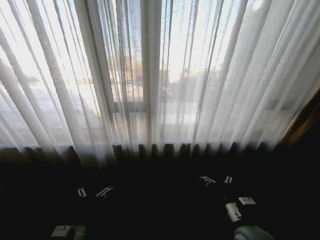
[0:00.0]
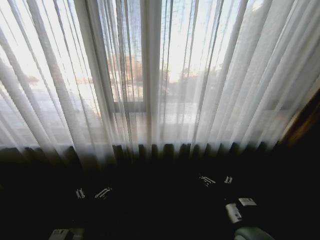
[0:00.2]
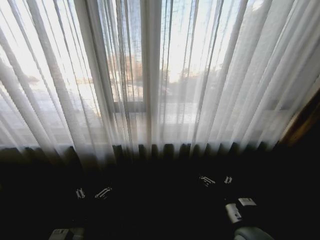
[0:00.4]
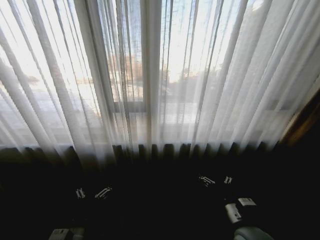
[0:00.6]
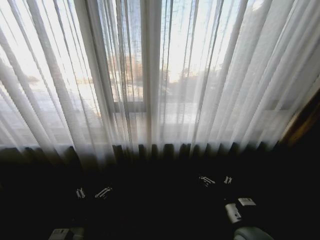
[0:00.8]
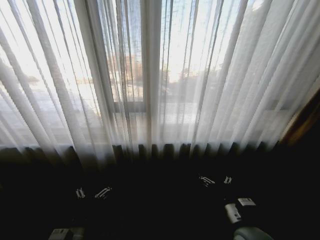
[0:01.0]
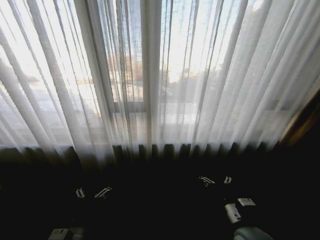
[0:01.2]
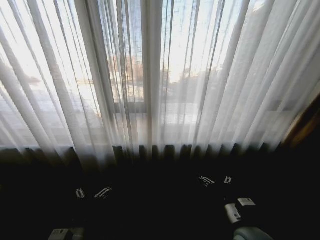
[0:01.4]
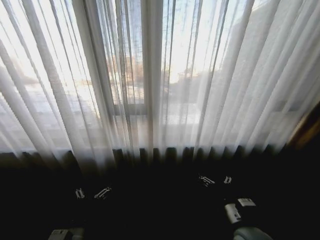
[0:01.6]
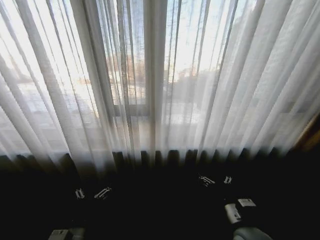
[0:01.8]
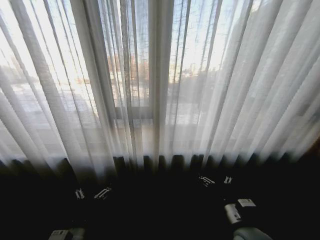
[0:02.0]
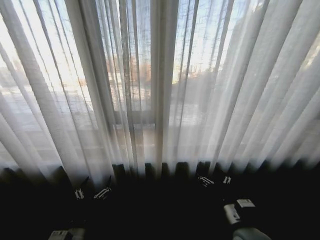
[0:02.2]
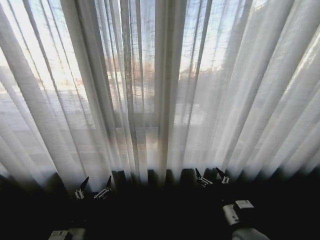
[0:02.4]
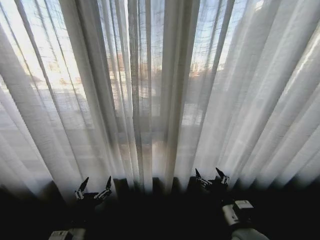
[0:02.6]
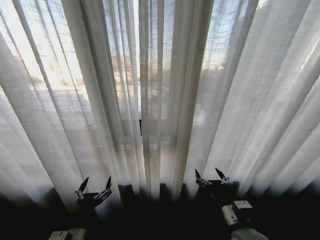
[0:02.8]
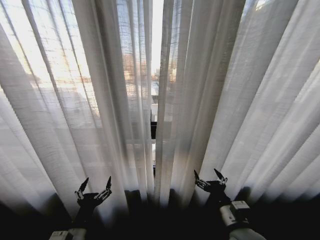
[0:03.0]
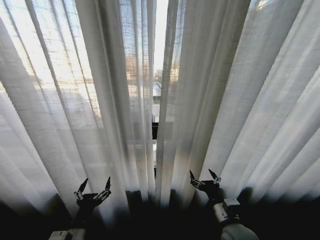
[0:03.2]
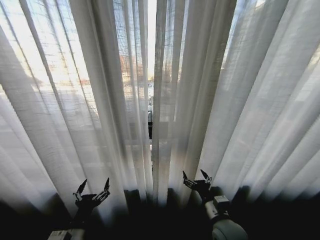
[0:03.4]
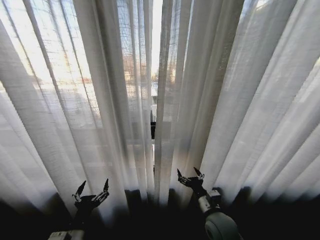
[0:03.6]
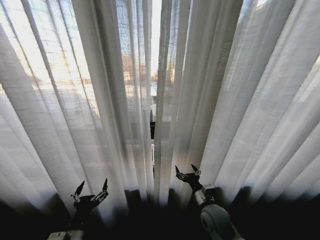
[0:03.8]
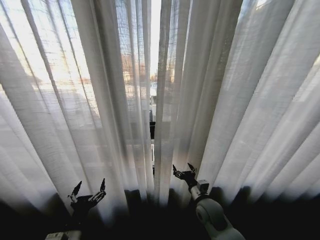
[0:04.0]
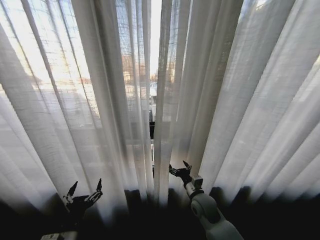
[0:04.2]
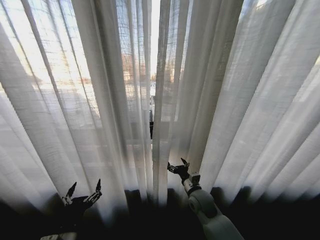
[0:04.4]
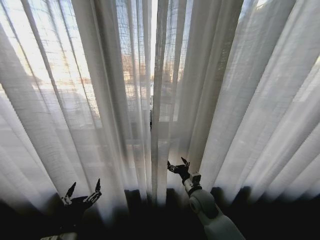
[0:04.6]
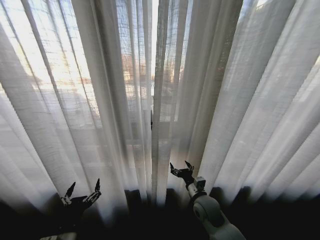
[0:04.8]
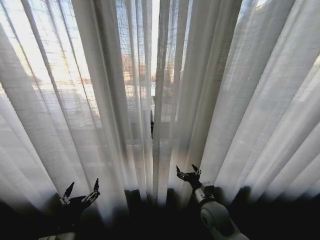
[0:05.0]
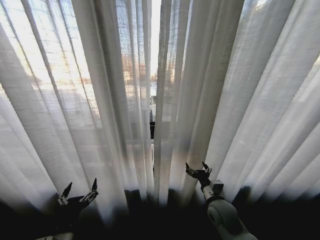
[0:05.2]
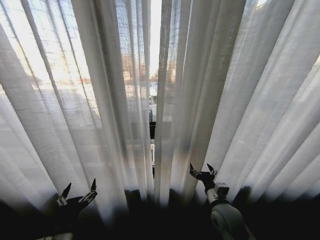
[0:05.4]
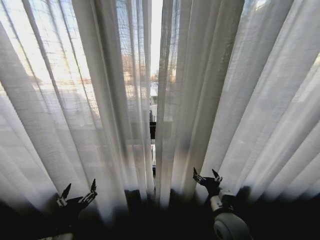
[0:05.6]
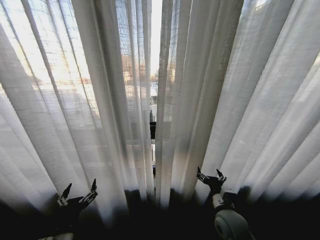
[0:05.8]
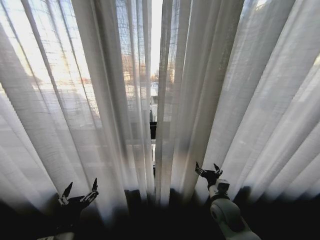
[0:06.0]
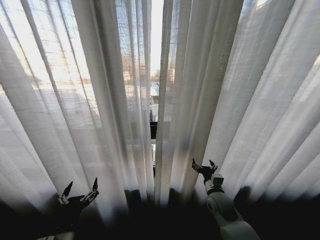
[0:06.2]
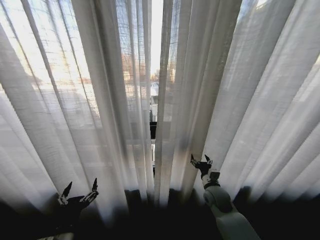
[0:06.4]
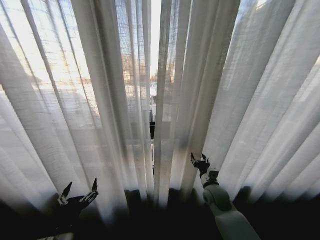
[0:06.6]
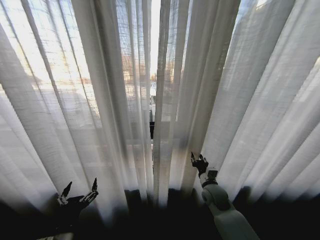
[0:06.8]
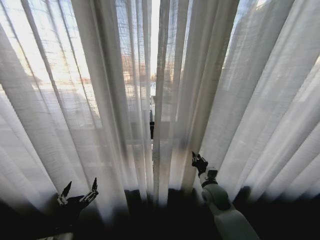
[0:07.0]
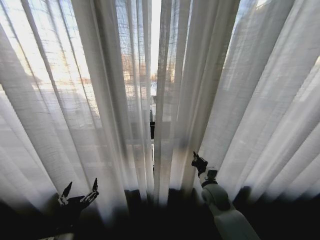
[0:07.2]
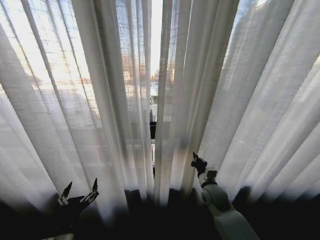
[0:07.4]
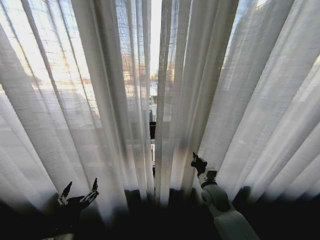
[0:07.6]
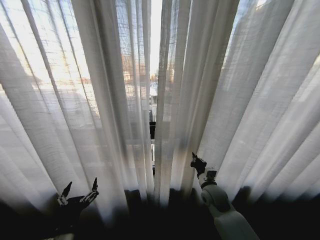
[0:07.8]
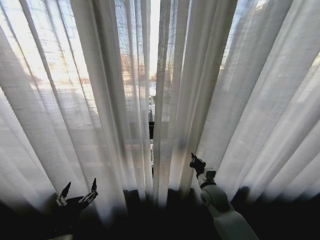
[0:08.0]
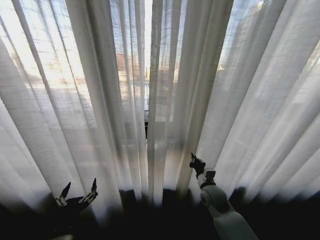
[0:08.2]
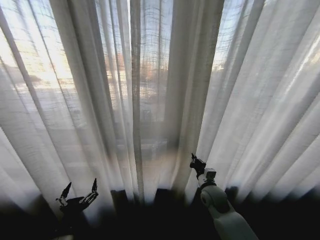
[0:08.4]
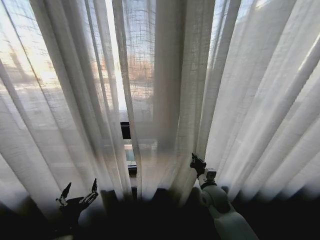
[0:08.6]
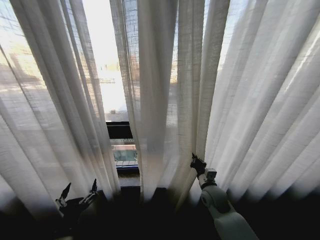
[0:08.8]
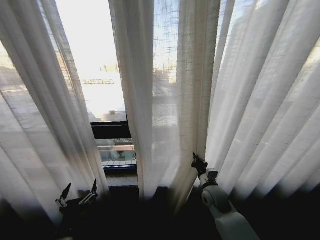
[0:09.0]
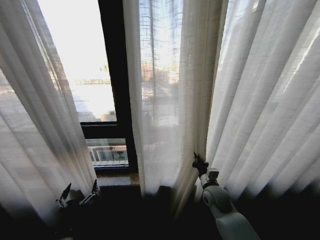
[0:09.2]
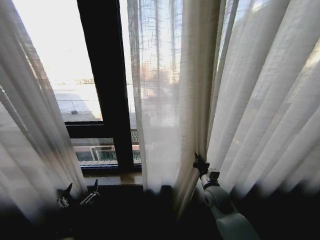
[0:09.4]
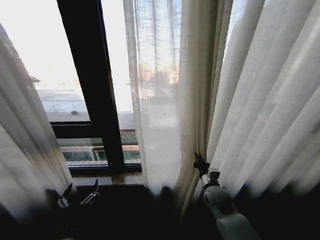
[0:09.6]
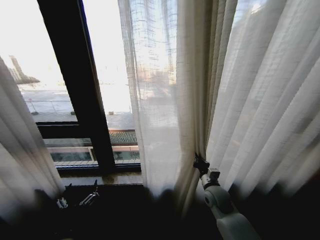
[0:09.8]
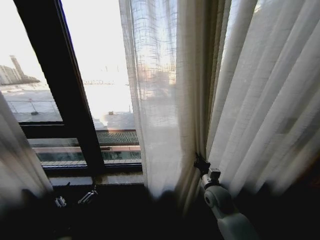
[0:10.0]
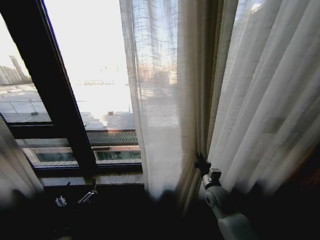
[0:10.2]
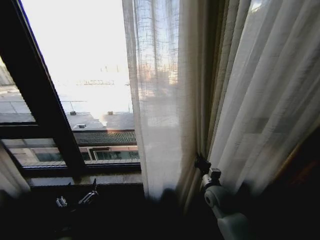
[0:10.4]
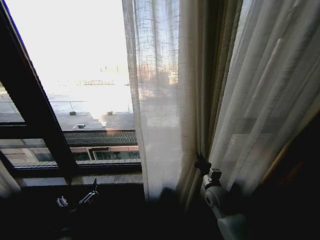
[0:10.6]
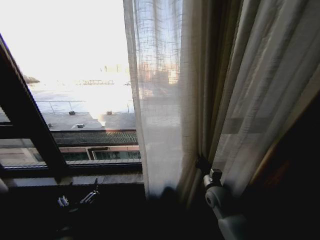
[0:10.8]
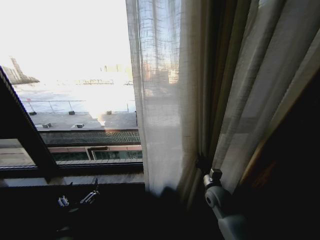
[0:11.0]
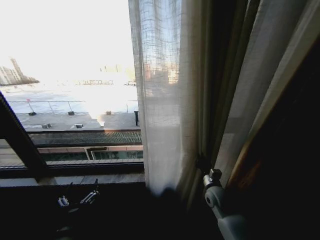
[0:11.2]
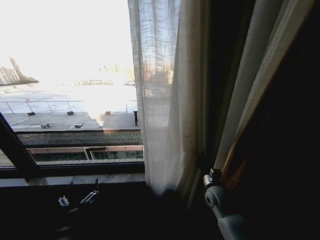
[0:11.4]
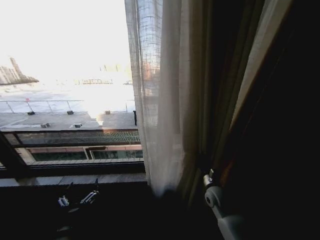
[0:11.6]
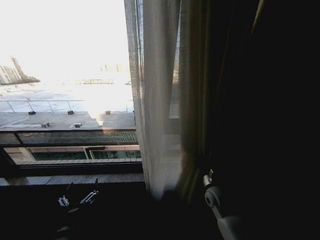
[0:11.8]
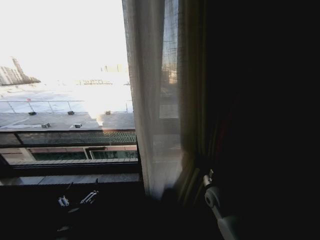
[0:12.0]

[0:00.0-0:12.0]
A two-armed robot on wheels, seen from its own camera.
Task of the whole recording: Open the curtains by pulling them apart, changing their state from closed to fully open.
0:03.0 to 0:04.4: The right gripper is displaced forward, to the left and downward by roughly 20 cm.
0:04.4 to 0:06.0: The right gripper travels to the right by roughly 10 cm.
0:06.0 to 0:07.6: The right gripper moves forward, roughly 5 cm, and closes its fingers.

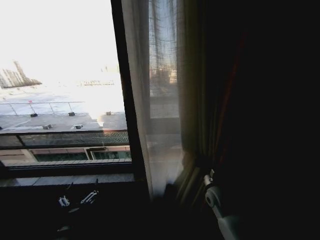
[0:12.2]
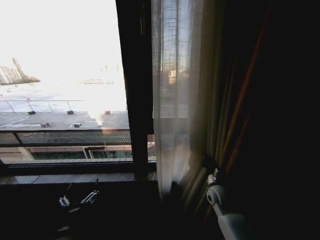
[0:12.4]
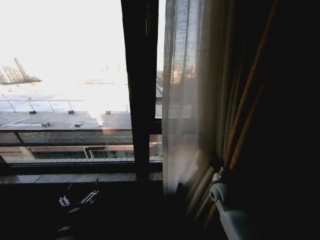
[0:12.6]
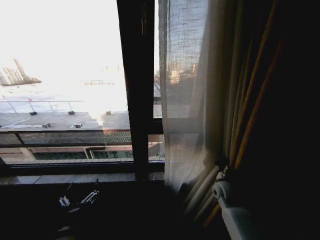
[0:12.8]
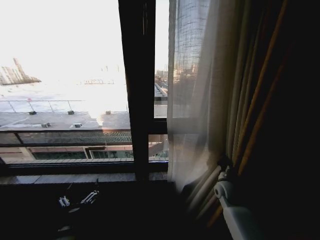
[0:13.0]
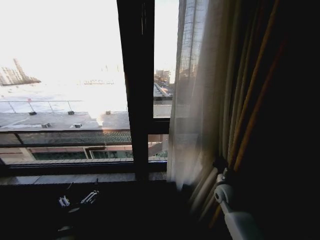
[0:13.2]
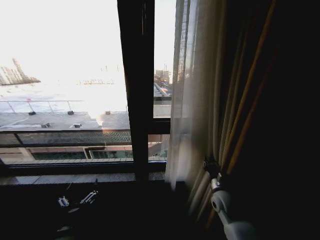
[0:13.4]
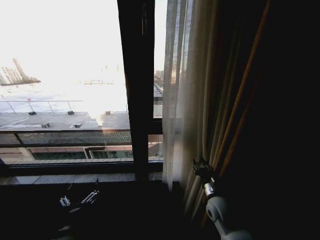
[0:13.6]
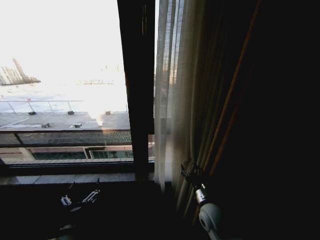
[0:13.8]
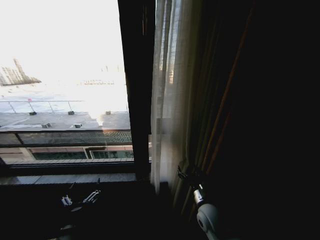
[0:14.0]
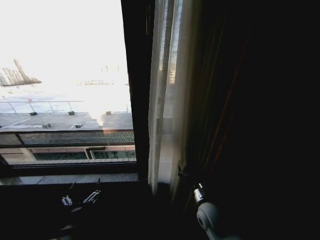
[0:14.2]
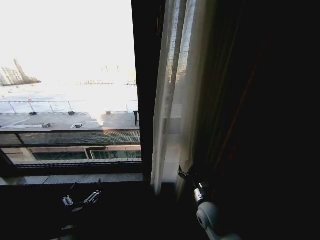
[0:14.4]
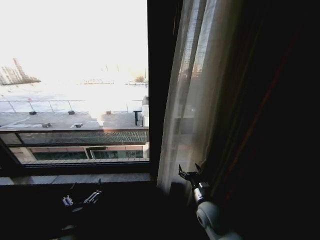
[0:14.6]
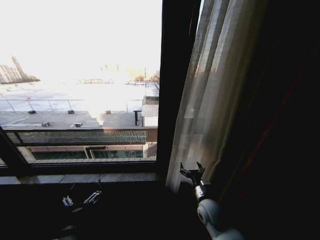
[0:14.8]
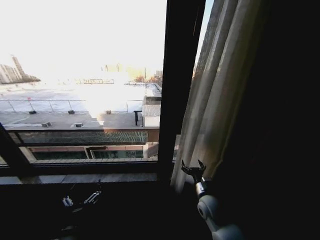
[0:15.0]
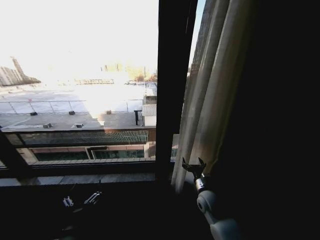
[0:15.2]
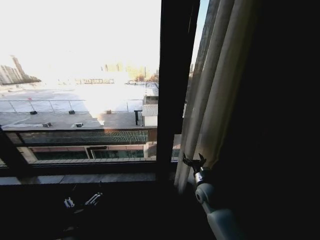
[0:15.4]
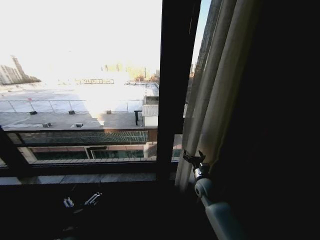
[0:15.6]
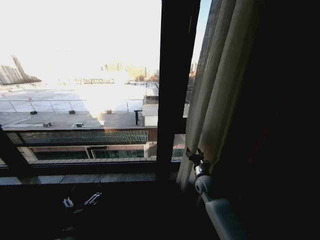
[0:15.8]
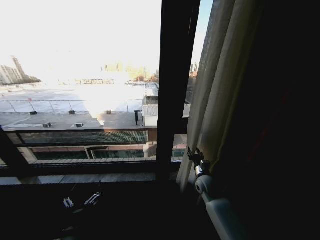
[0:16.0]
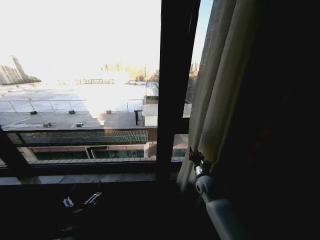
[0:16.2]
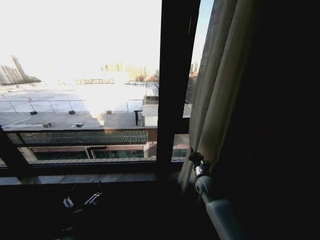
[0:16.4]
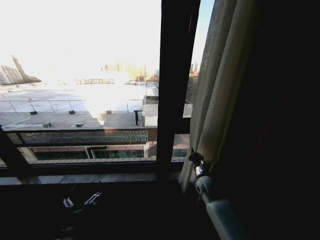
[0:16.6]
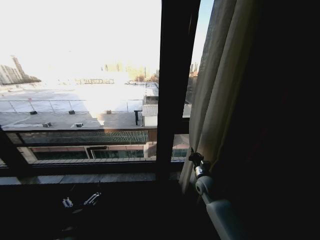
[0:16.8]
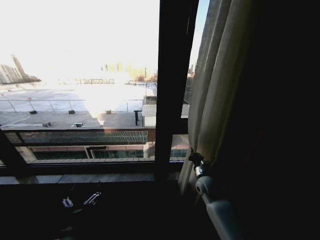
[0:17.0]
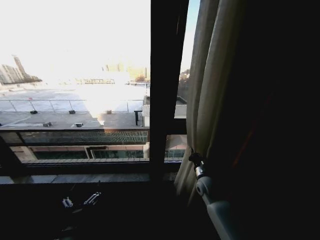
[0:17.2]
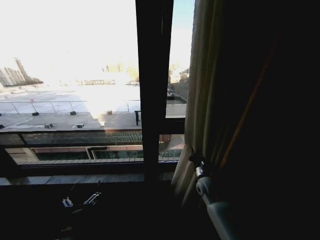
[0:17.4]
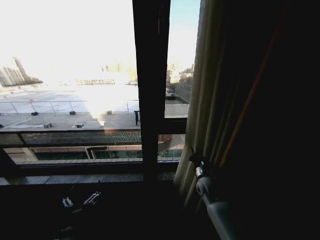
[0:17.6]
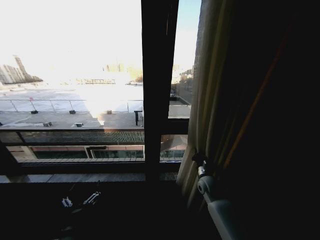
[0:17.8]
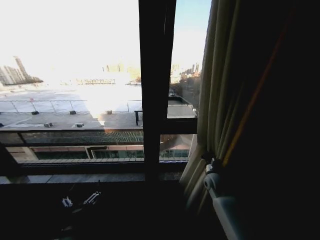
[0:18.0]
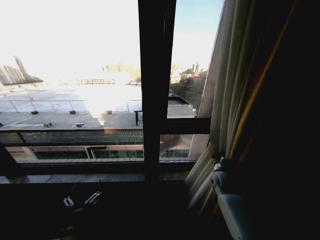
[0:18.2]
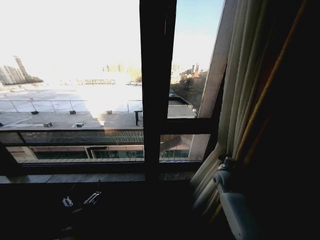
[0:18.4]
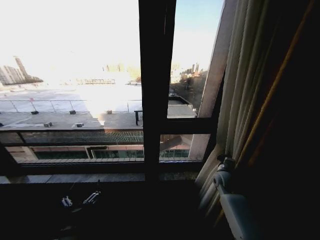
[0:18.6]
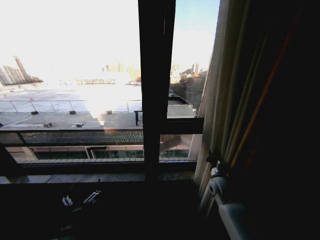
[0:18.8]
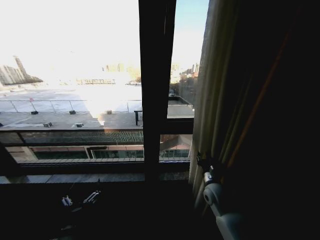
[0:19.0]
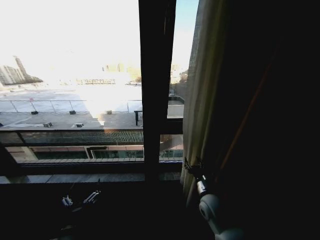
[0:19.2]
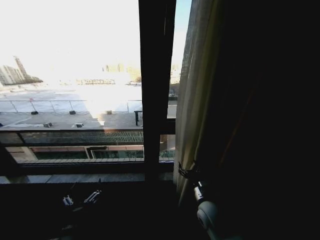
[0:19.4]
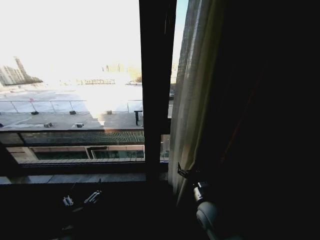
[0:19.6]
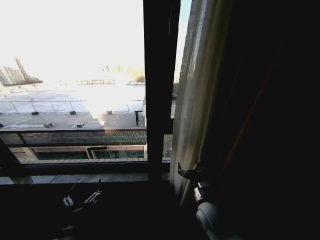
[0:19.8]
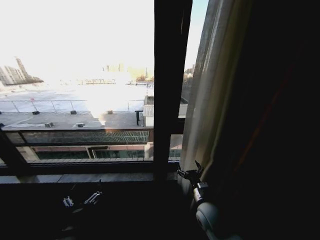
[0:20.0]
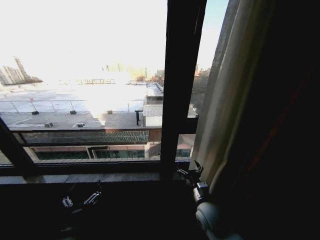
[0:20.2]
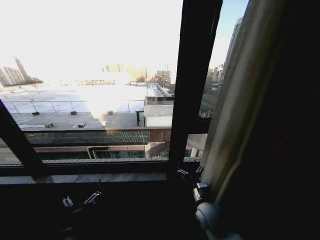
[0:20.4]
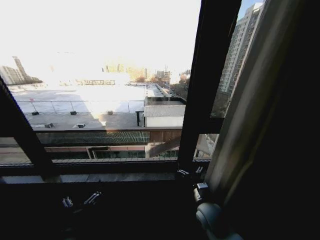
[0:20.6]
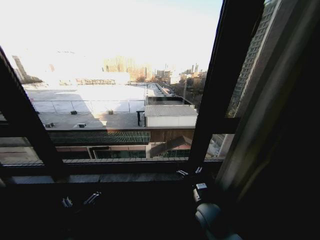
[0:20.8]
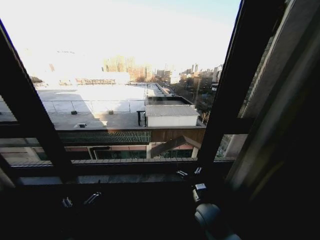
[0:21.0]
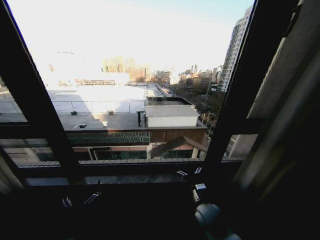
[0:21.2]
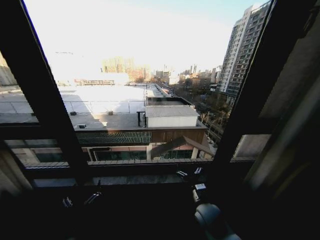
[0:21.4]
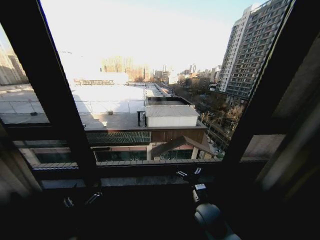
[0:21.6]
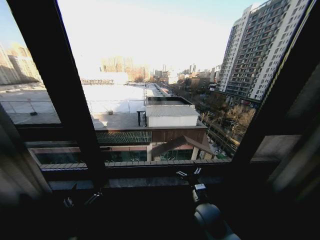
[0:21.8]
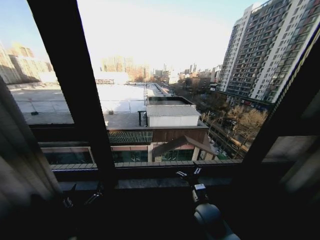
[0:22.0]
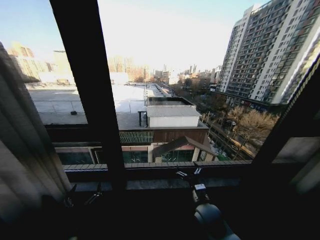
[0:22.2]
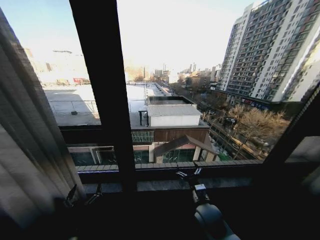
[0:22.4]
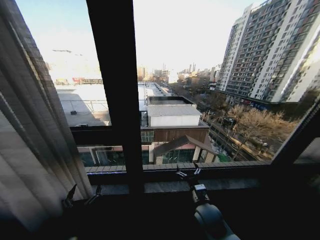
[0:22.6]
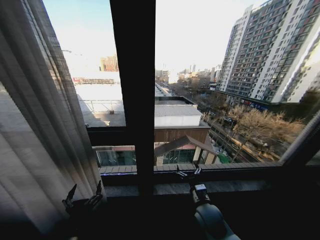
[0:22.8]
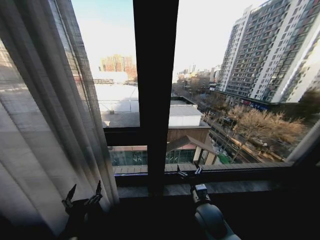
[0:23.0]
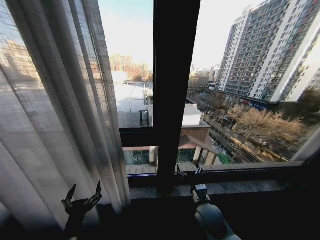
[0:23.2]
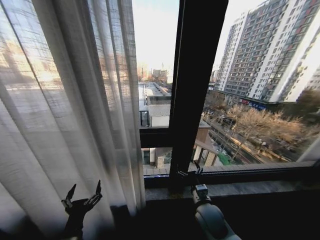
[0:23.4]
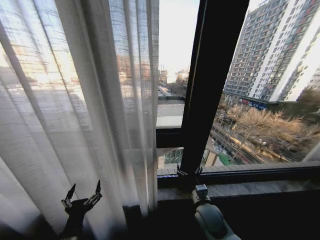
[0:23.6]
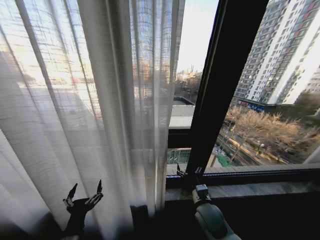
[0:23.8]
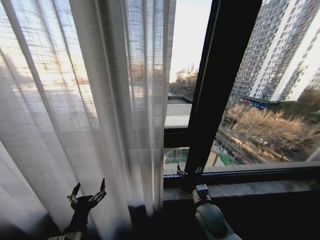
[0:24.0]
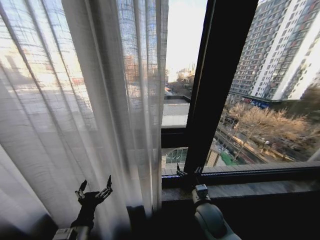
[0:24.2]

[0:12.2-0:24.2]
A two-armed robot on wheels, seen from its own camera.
Task of the whole recording: Open the curtains by pulling them apart, changing their state from closed to fully open.
0:12.2 to 0:13.8: The right gripper heads backward and to the left, covering about 10 cm, and opens its fingers.
0:13.8 to 0:15.2: The right gripper heads forward, covering approximately 5 cm.
0:15.2 to 0:16.6: The right gripper goes some 5 cm forward, and closes up.
0:16.6 to 0:18.2: The right gripper shifts approximately 10 cm to the right.
0:18.2 to 0:19.8: The right gripper moves backward and to the left, about 20 cm, and opens up.
